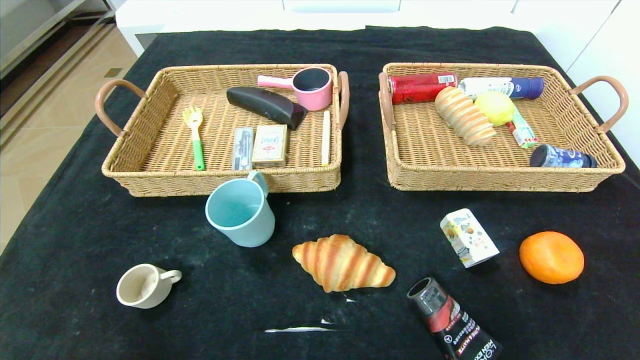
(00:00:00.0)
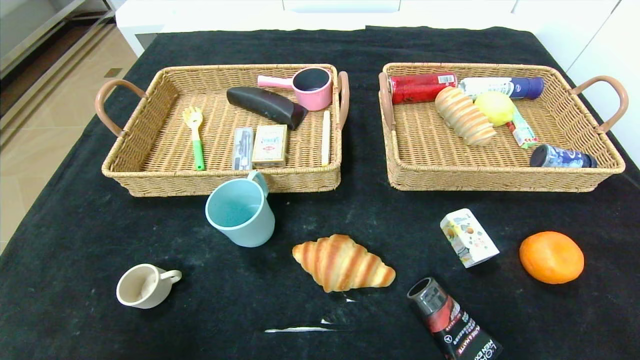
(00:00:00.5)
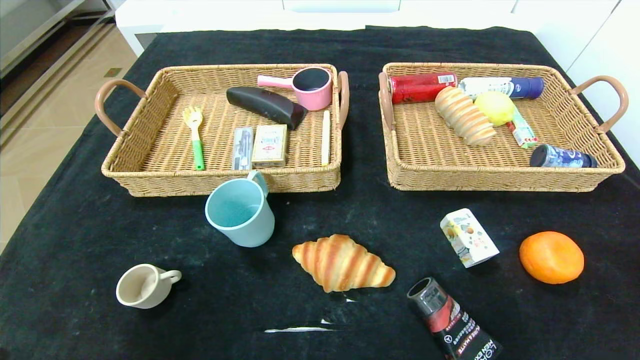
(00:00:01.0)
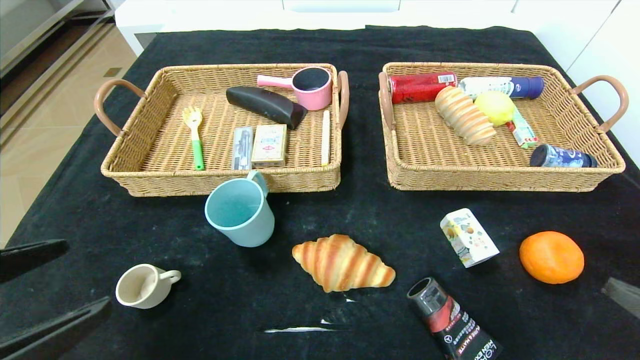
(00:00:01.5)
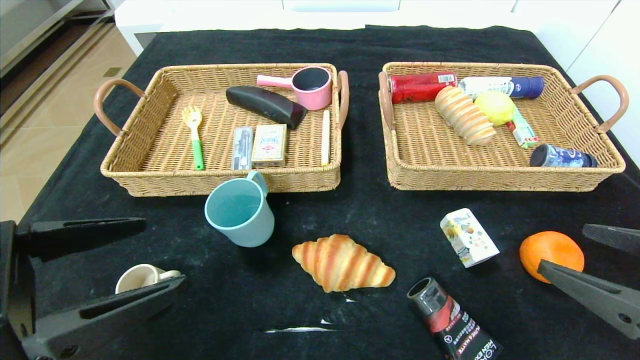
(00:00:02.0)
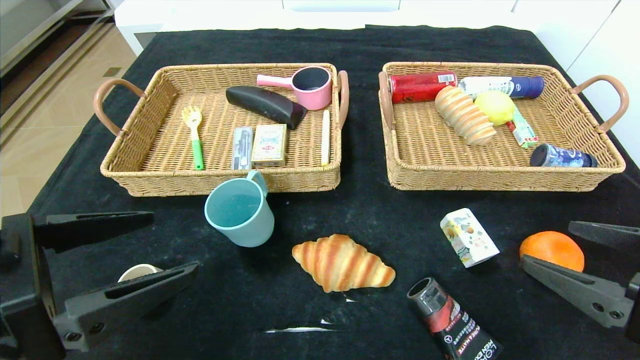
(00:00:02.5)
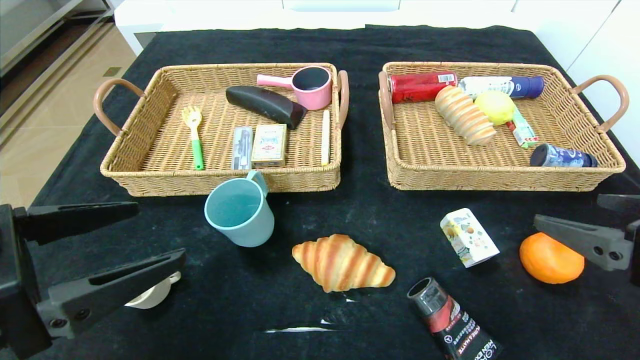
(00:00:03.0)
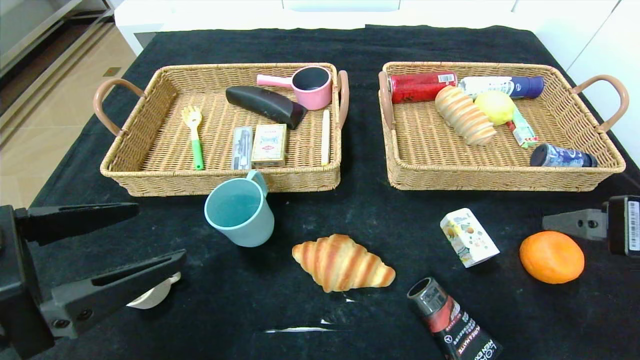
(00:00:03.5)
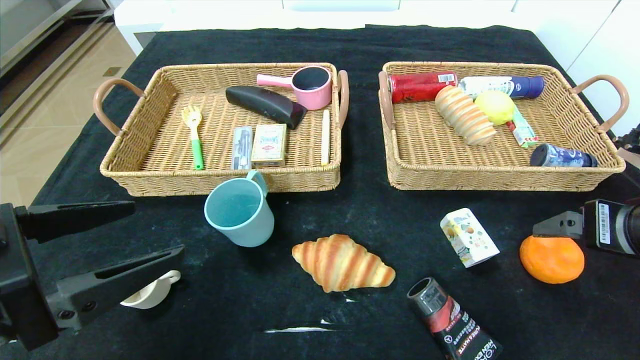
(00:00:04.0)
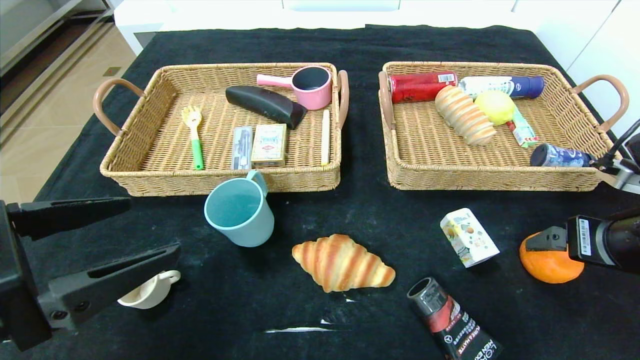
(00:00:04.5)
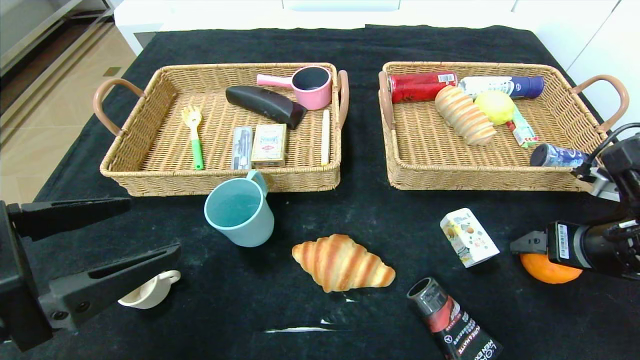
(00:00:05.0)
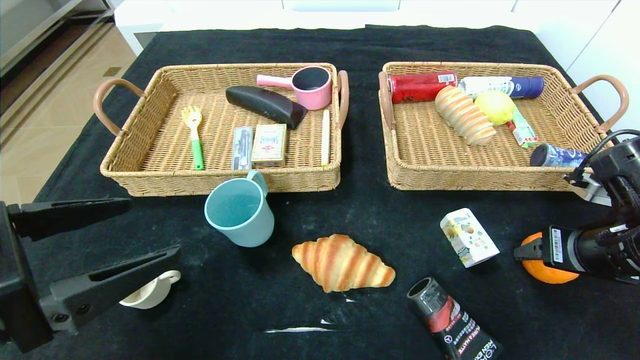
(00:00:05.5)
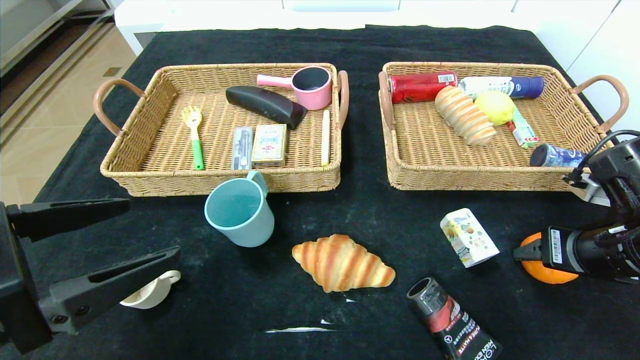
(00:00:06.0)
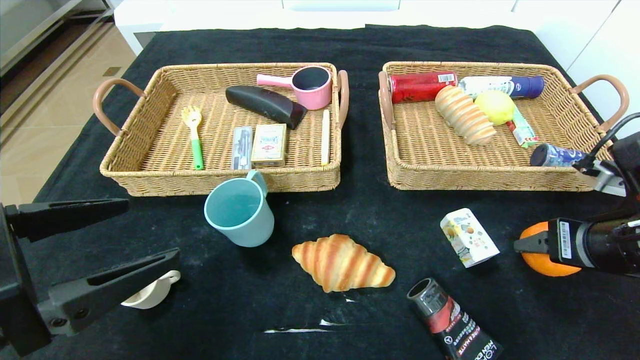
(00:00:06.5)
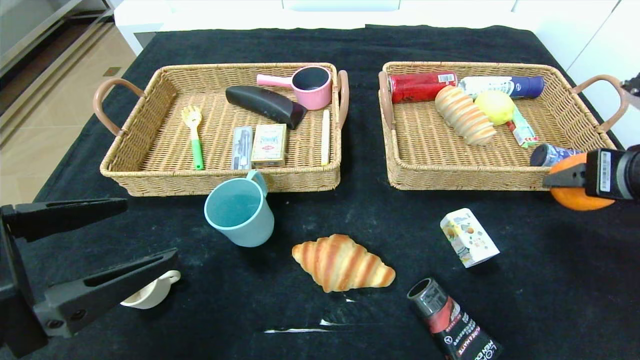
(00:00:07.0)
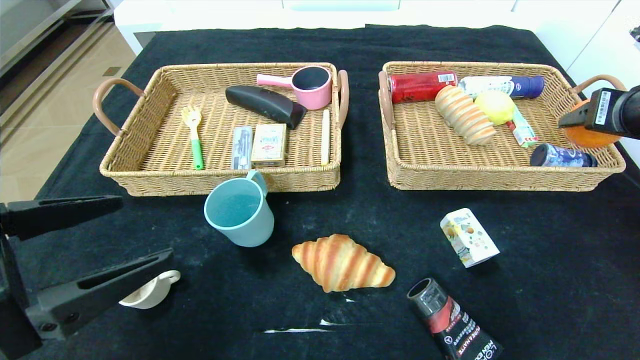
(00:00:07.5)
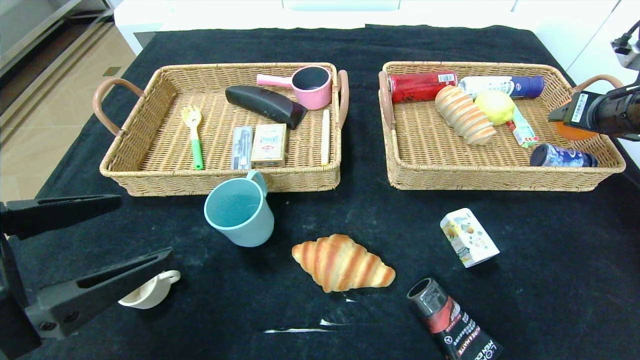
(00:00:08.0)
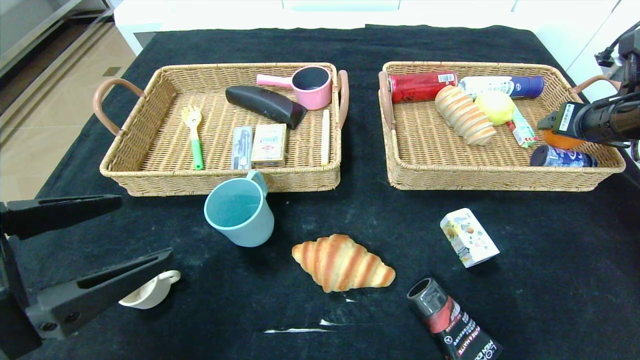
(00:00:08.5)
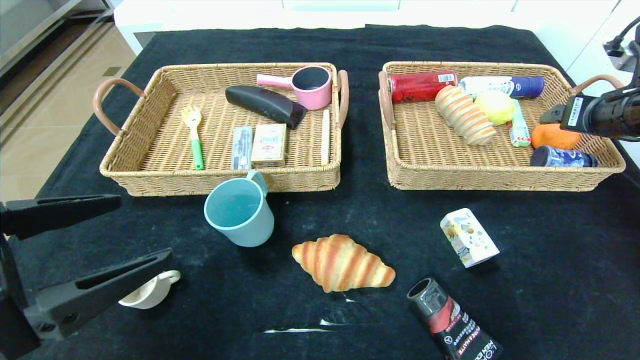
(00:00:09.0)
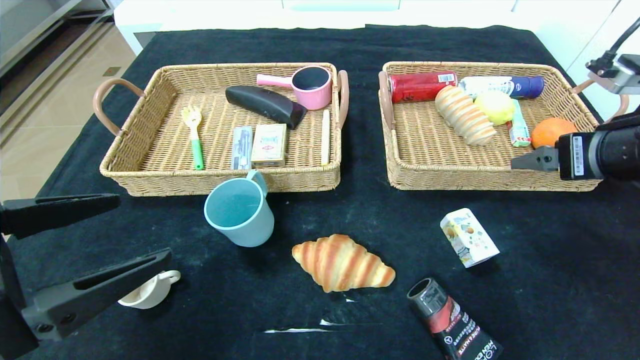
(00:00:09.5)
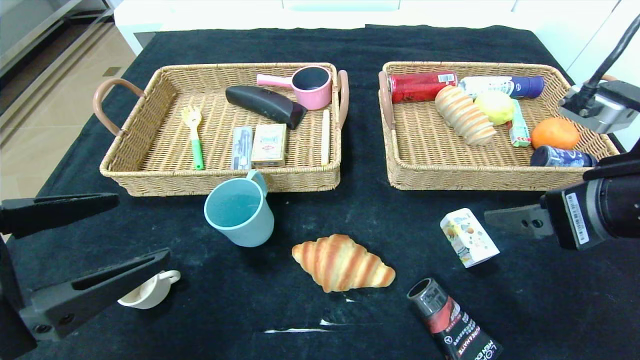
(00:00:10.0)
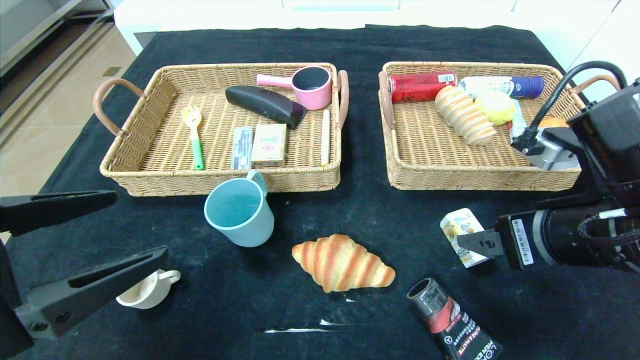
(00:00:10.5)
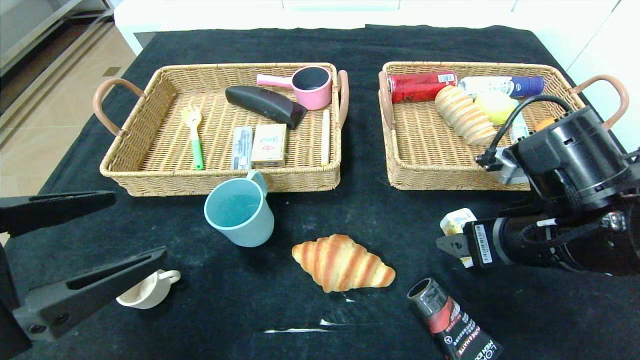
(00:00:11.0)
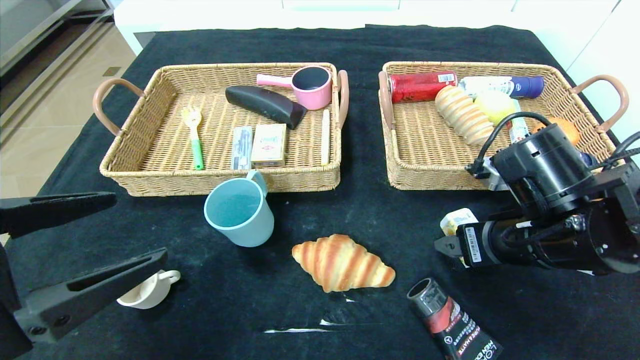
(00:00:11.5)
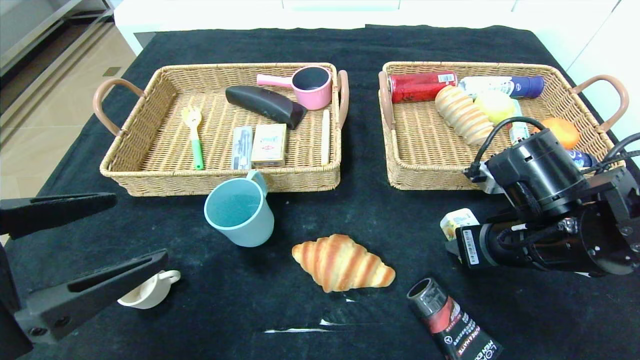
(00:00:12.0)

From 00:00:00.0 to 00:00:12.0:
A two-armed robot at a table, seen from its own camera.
Step, from 00:00:00.0 to 00:00:08.5: Grasp the orange and put it in the right basket.
From 00:00:00.0 to 00:00:02.0: The left gripper heads upward and forward, covering about 25 cm, while the right gripper moves upward, forward and to the left, roughly 20 cm.
From 00:00:02.0 to 00:00:04.0: The right gripper heads forward, covering some 10 cm.
From 00:00:04.0 to 00:00:06.0: The right gripper heads downward, covering some 5 cm, and closes its fingers.
From 00:00:06.0 to 00:00:08.0: The right gripper heads forward, upward and to the right, covering about 20 cm.
From 00:00:08.0 to 00:00:10.0: The right gripper is displaced backward and to the left by roughly 20 cm, and opens up.
From 00:00:10.0 to 00:00:12.0: The right gripper goes about 10 cm downward and forward, and closes its fingers.

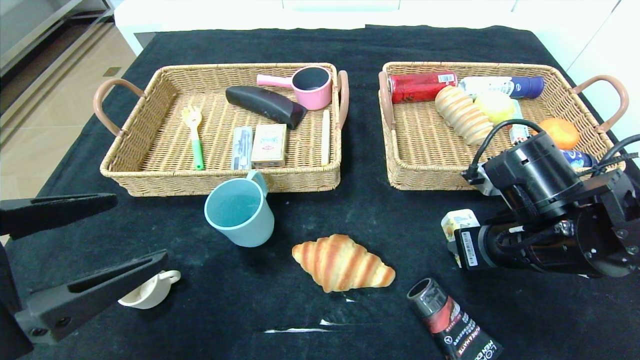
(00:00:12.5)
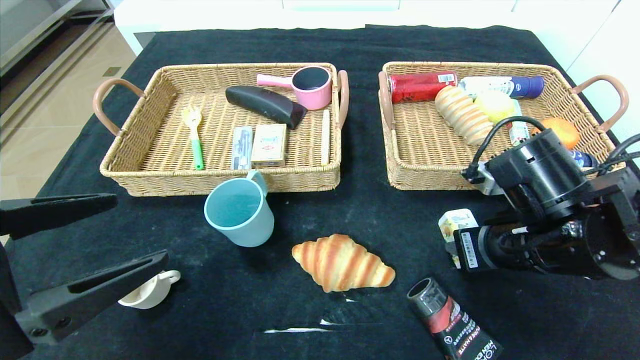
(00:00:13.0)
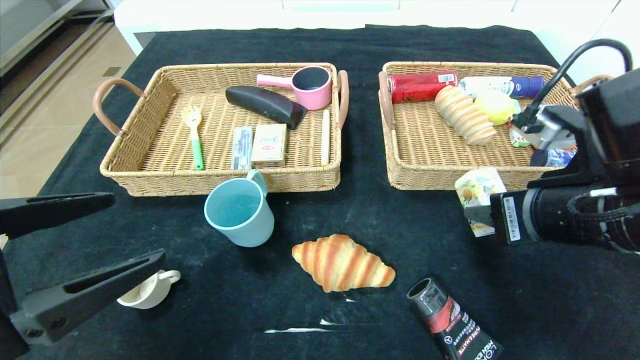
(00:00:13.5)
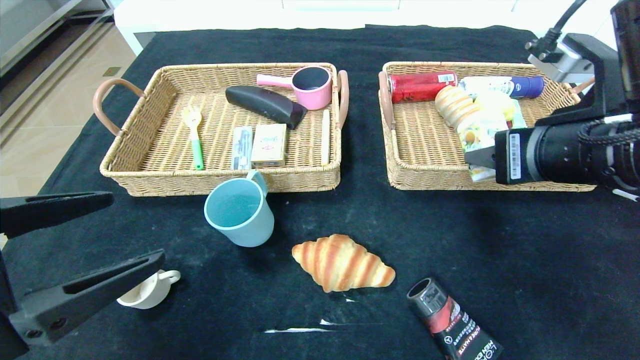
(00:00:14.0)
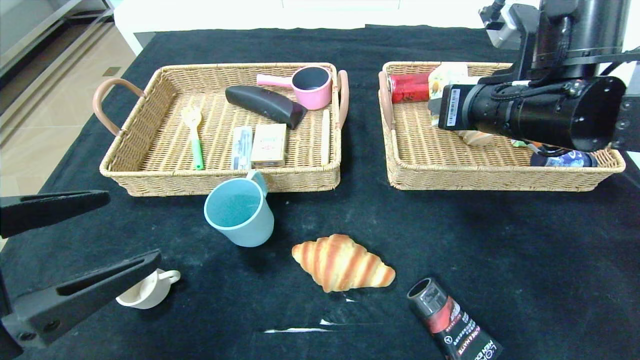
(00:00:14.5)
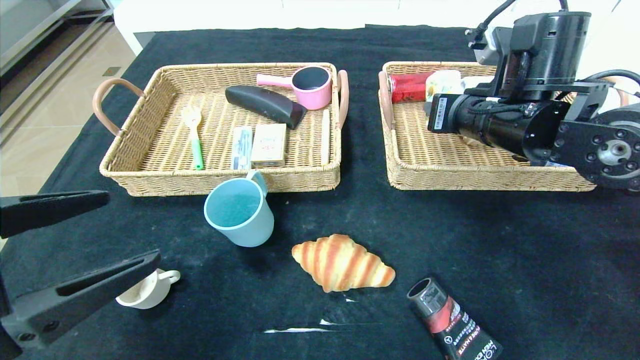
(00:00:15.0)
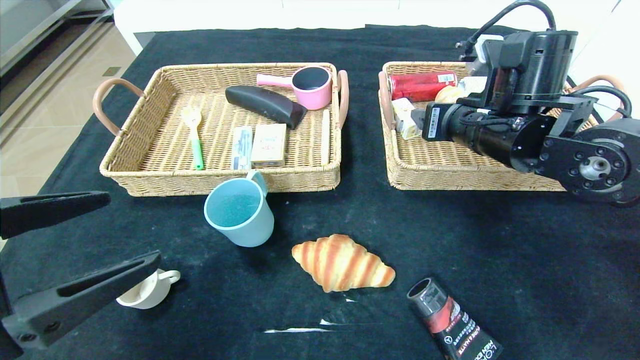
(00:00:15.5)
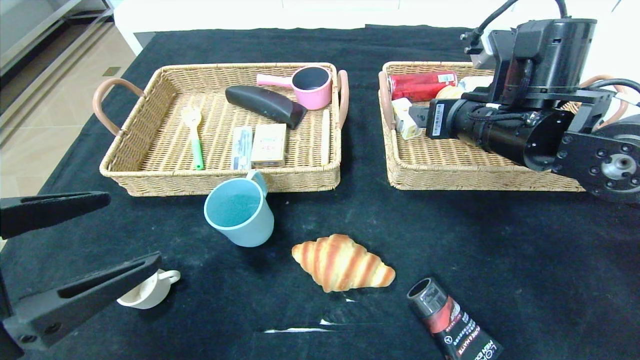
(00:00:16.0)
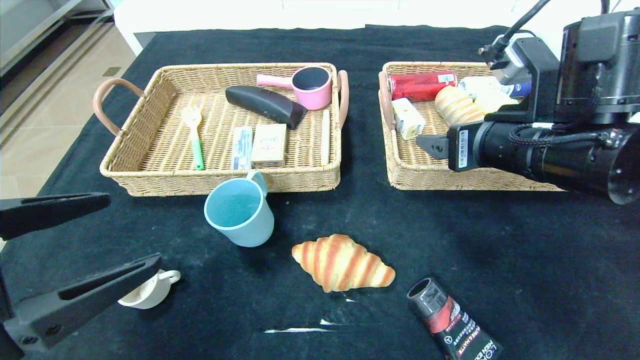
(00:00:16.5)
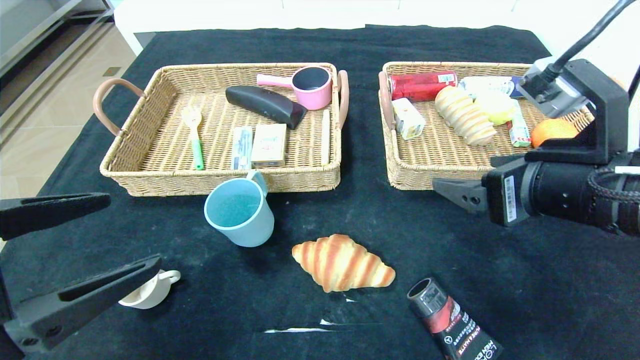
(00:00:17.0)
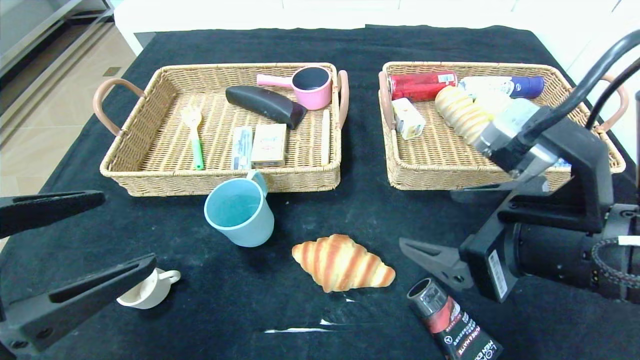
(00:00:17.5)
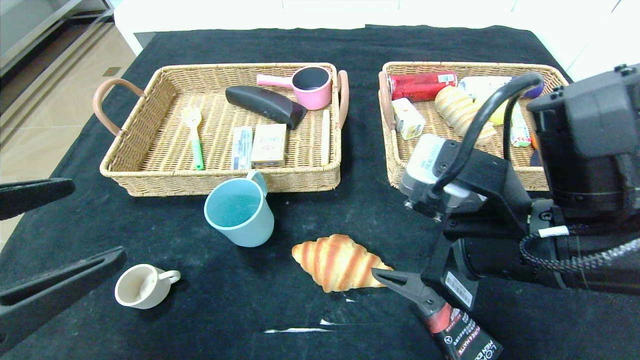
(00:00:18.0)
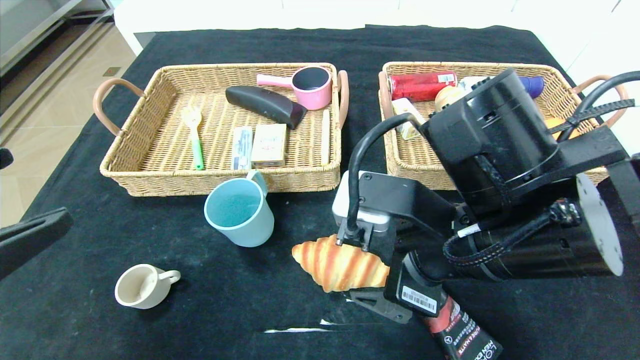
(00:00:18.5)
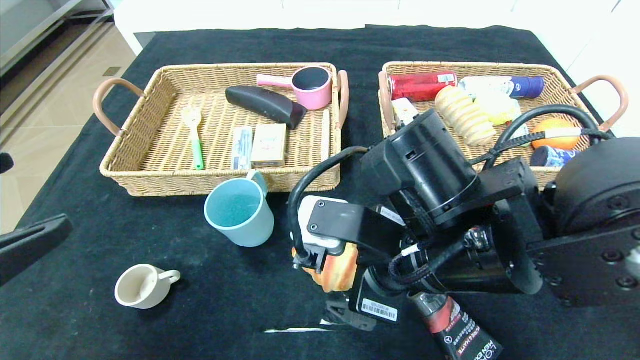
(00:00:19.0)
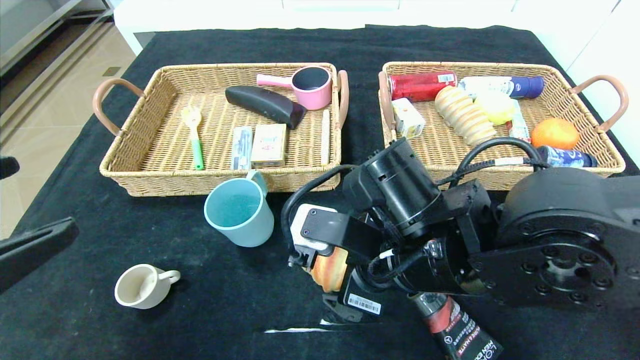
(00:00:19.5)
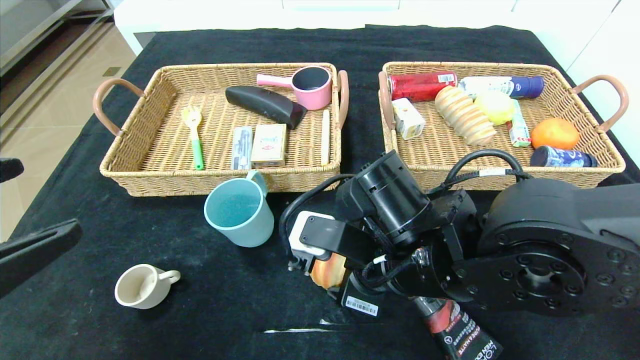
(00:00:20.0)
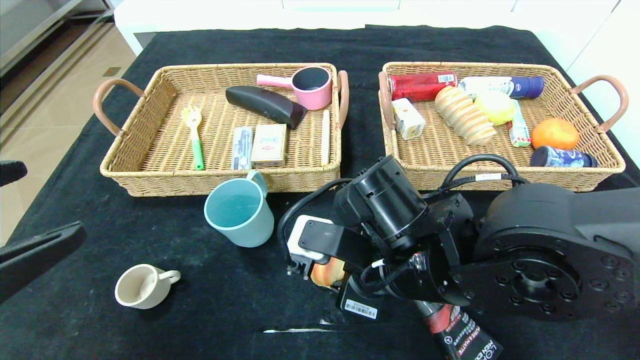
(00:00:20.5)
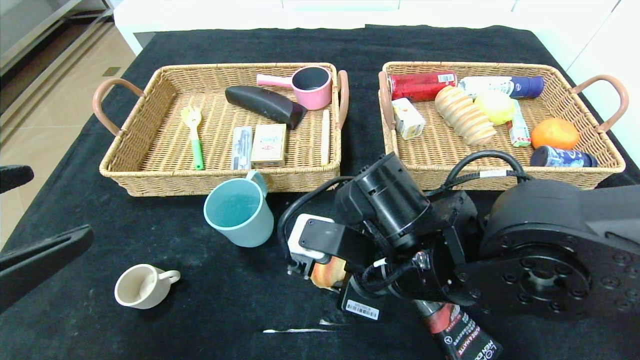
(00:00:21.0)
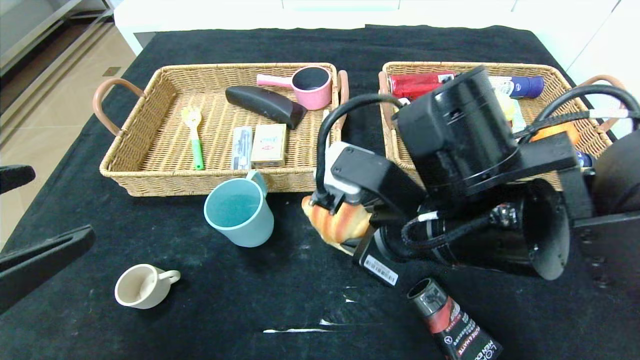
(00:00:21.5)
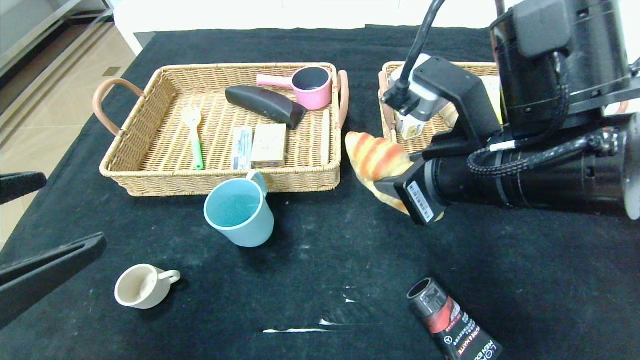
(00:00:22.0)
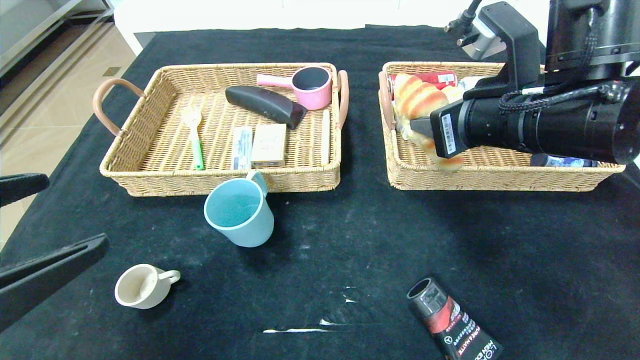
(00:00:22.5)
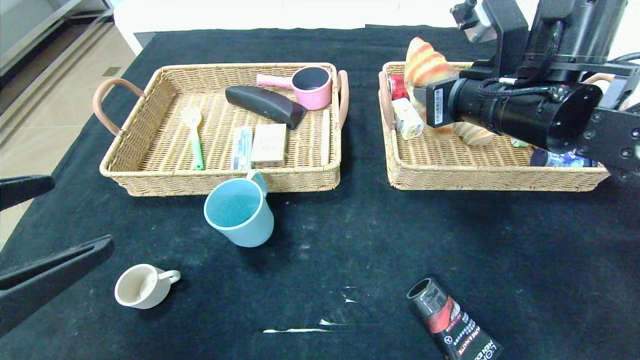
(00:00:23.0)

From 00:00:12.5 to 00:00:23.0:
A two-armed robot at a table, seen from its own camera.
Step, from 00:00:12.5 to 00:00:15.0: Grasp the square chewing gum and put it in the right basket.
From 00:00:12.5 to 00:00:14.5: The right gripper shifts roughly 15 cm upward and forward.
From 00:00:14.5 to 00:00:16.5: The right gripper moves approximately 5 cm, and opens.
From 00:00:16.5 to 00:00:19.0: The right gripper is displaced to the left, downward and backward by roughly 15 cm.
From 00:00:19.0 to 00:00:21.0: The right gripper closes its fingers.
From 00:00:21.0 to 00:00:23.0: The right gripper travels upward, to the right and forward by some 20 cm.
